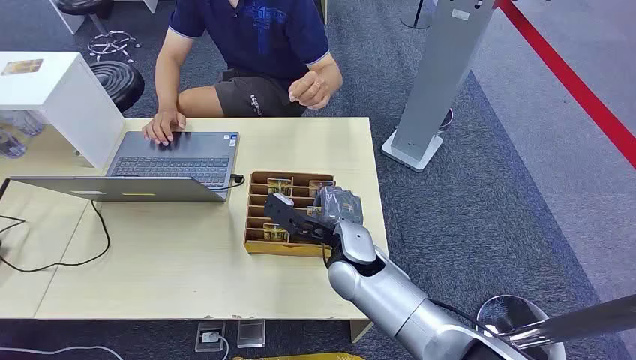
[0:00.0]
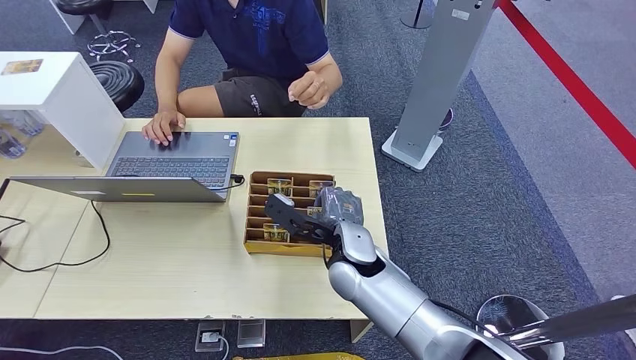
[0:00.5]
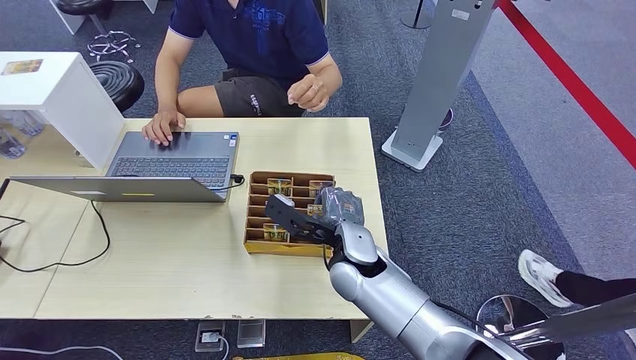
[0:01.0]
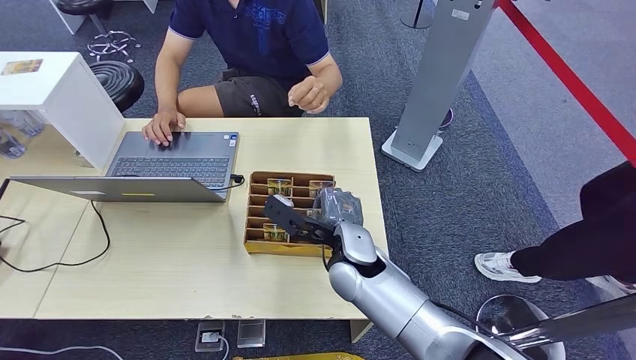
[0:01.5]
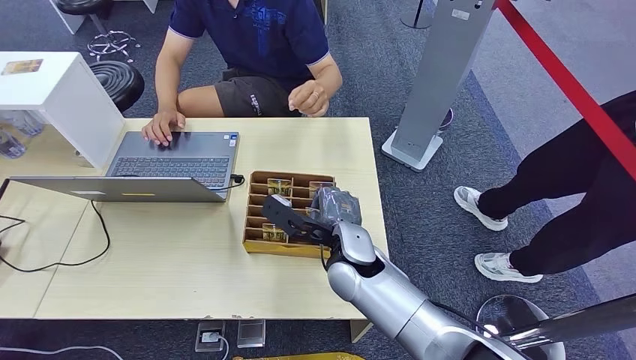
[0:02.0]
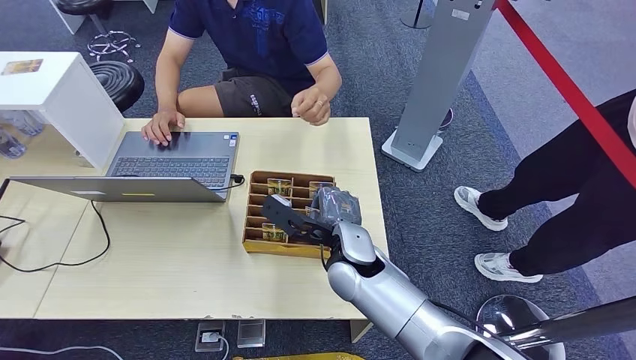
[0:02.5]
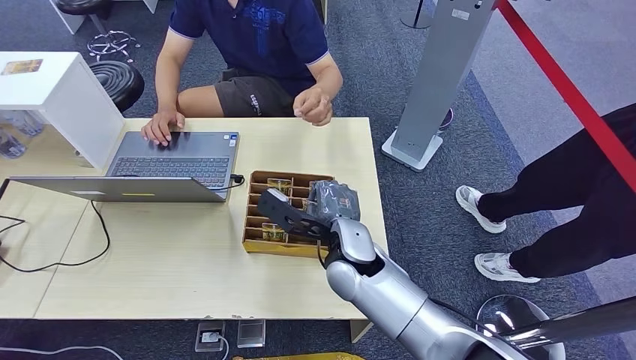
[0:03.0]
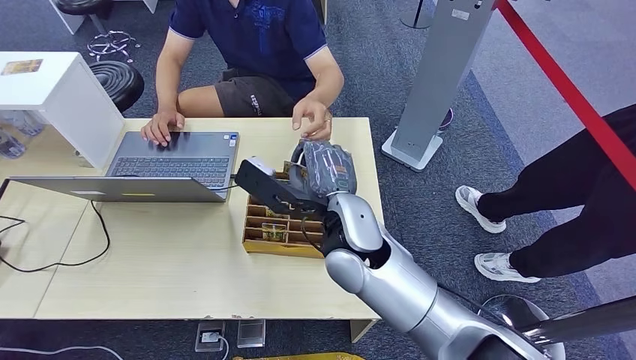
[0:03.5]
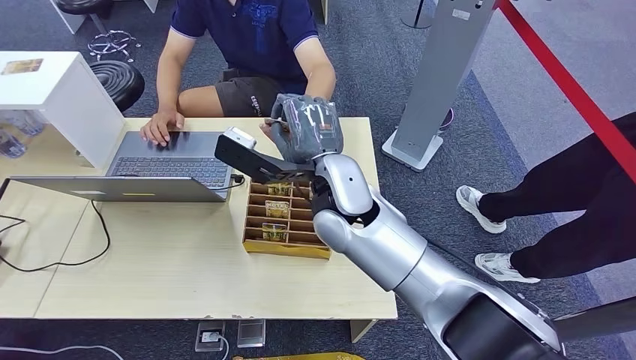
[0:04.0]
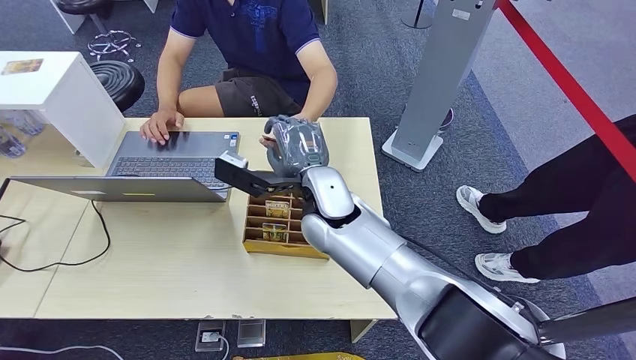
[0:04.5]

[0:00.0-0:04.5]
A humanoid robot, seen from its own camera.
Step, 0:00.0 to 0:03.0: Pick up the room card from the card holder.
Step, 0:03.5 to 0:04.5: Hand the room card to the target.
0:02.0 to 0:04.5: The right hand heads upward, covering roughly 10 cm.

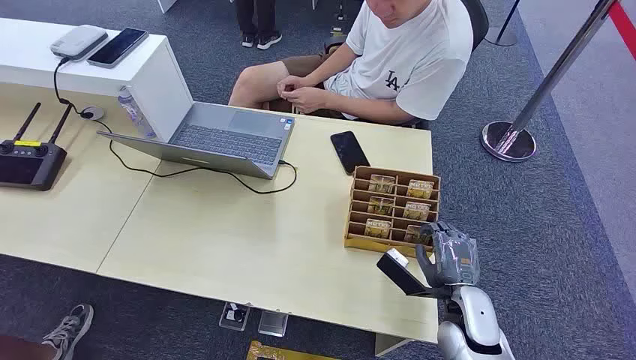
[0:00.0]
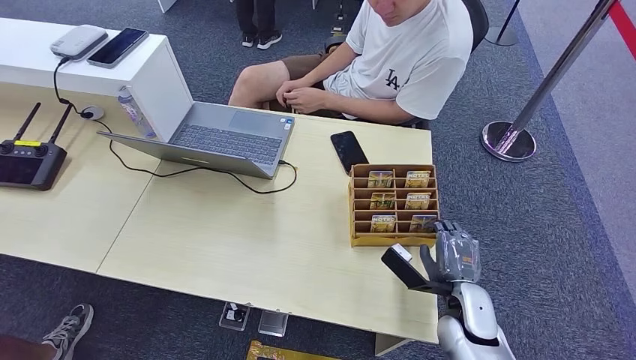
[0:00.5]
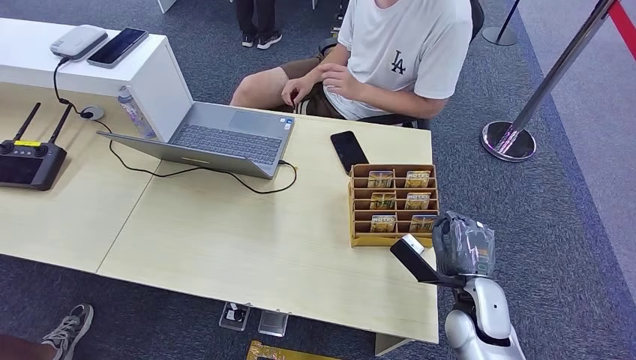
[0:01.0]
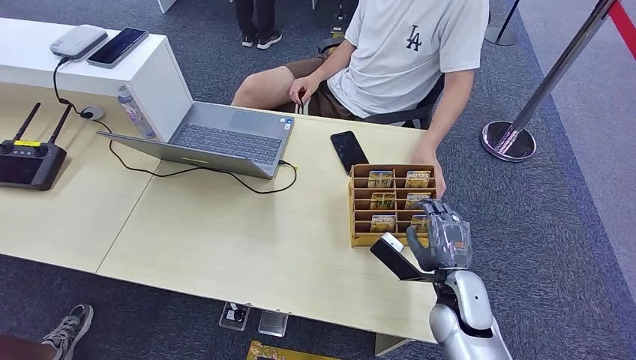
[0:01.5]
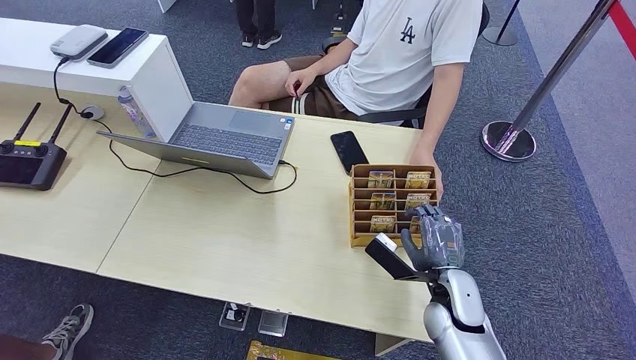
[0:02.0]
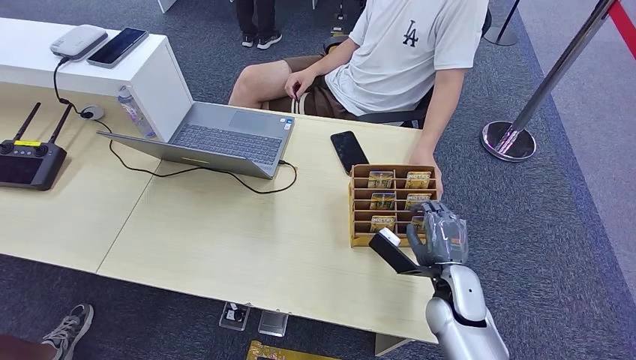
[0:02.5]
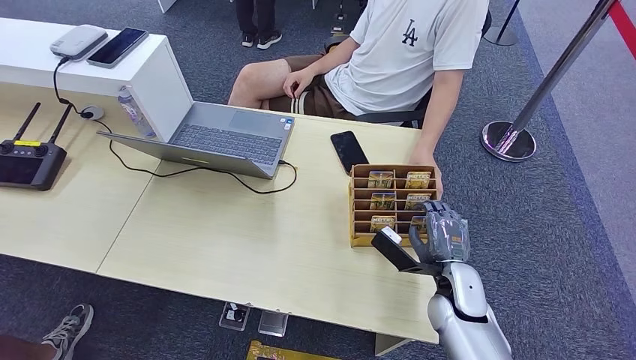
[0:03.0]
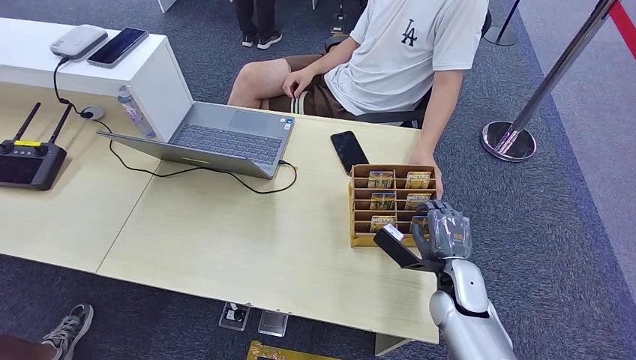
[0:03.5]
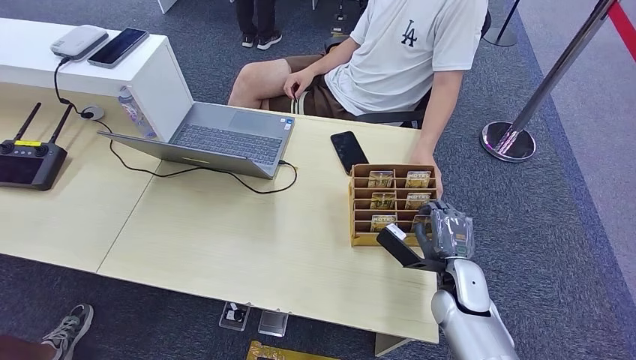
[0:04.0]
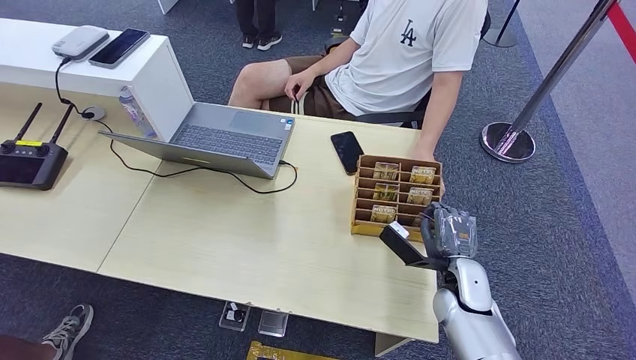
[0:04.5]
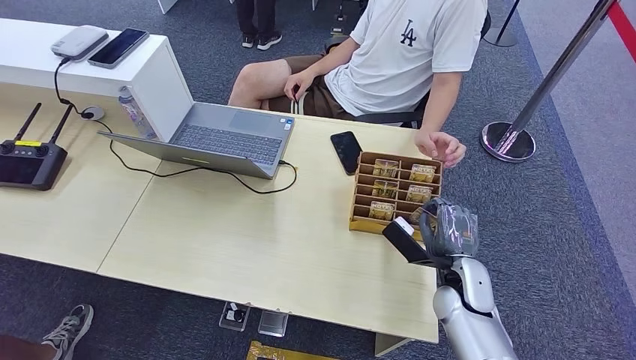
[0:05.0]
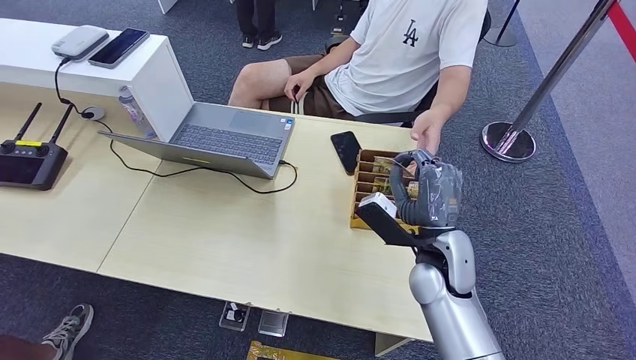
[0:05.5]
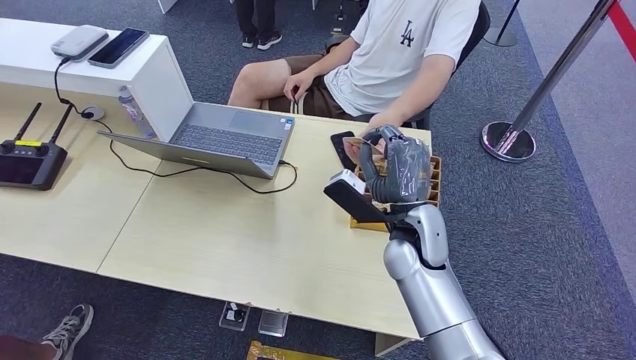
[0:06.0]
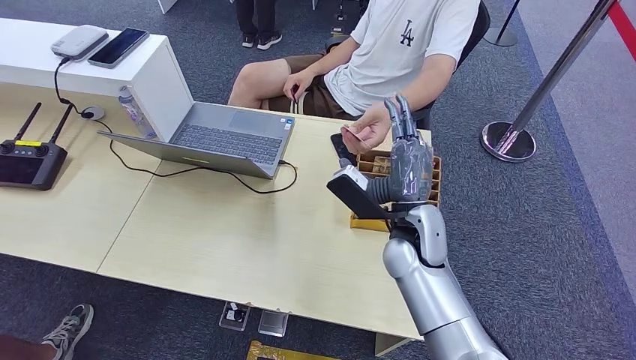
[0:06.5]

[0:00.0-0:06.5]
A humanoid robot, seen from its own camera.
Step, 0:00.0 to 0:05.0: Pick up the room card from the card holder.
Step, 0:05.5 to 0:06.5: Hand the room card to the target.
0:02.0 to 0:04.5: There are only small adjustments of the hands.
0:04.5 to 0:06.5: The right hand shifts roughly 15 cm to the left and upward.
